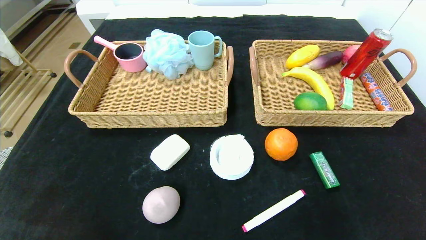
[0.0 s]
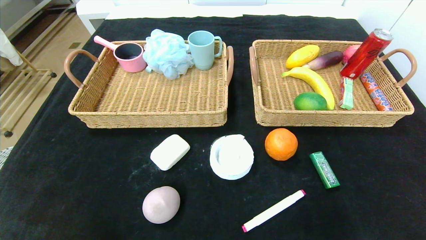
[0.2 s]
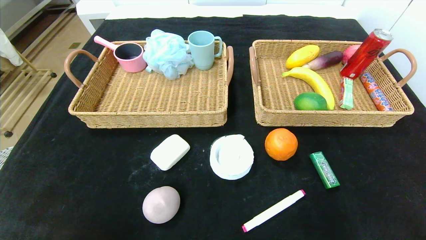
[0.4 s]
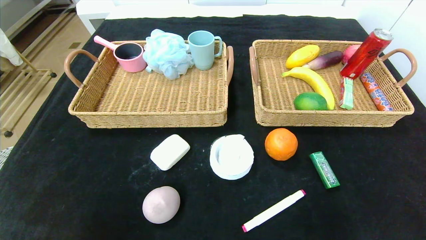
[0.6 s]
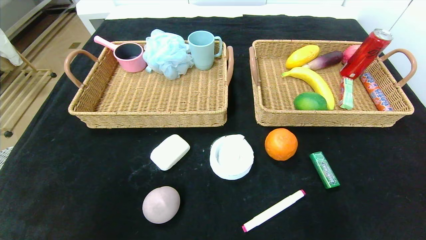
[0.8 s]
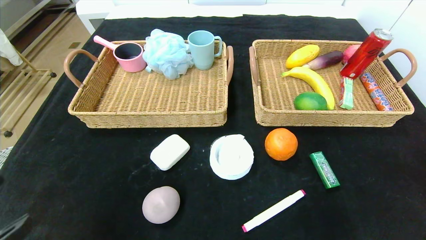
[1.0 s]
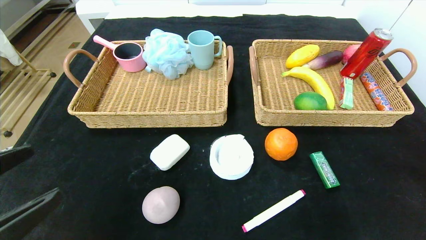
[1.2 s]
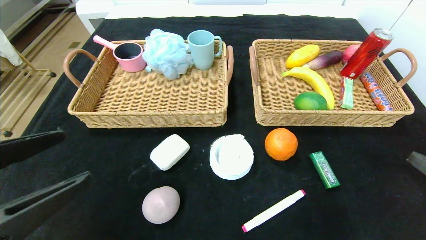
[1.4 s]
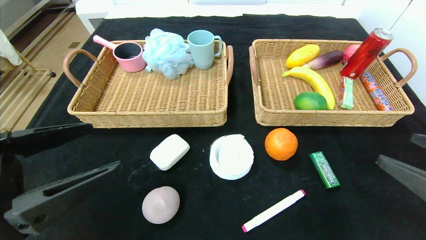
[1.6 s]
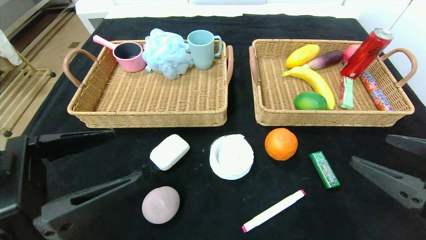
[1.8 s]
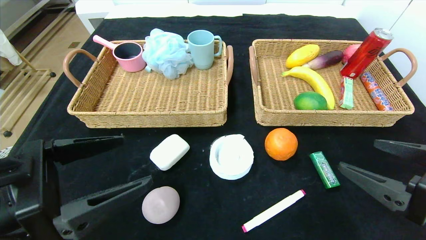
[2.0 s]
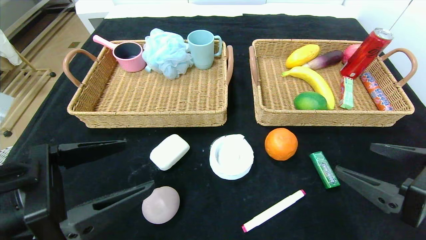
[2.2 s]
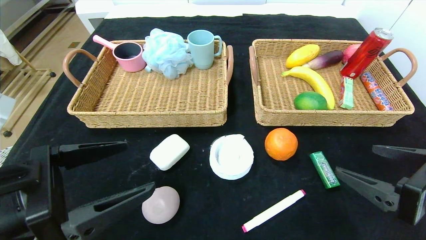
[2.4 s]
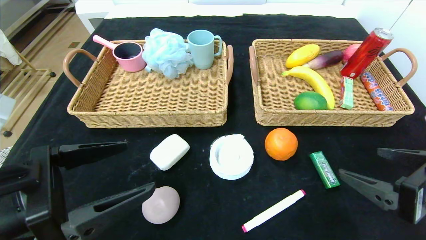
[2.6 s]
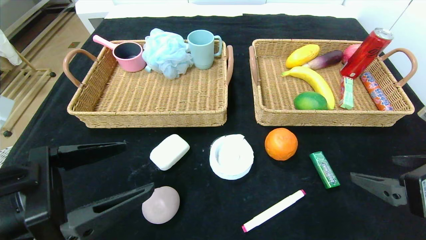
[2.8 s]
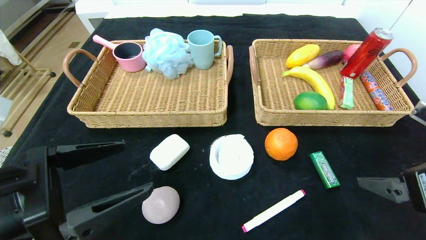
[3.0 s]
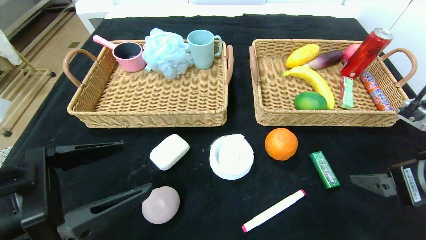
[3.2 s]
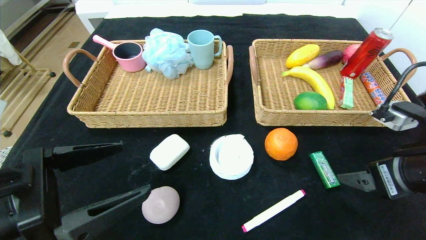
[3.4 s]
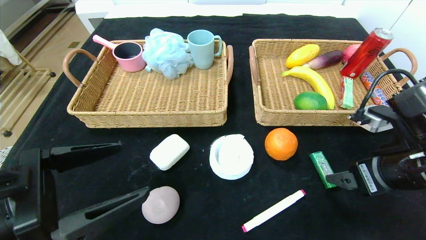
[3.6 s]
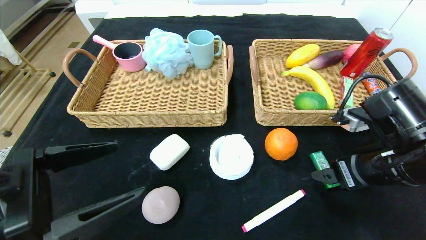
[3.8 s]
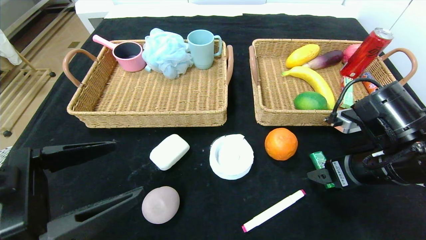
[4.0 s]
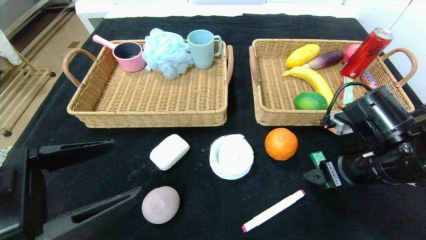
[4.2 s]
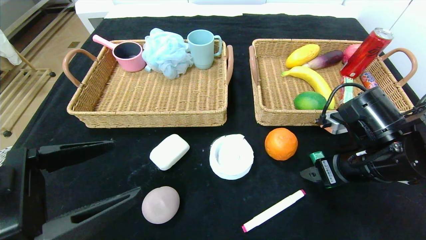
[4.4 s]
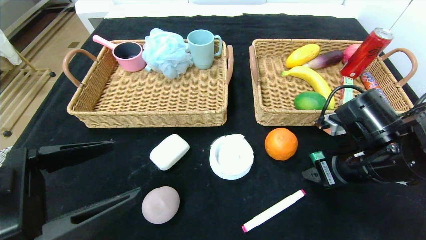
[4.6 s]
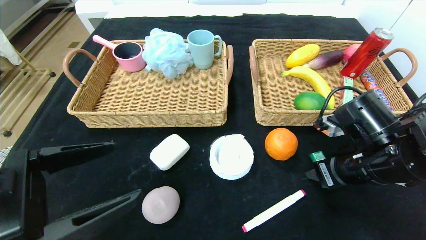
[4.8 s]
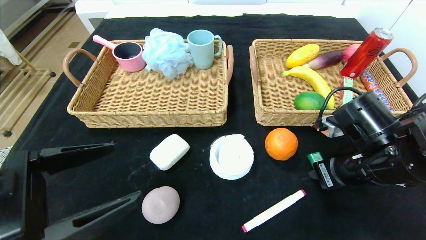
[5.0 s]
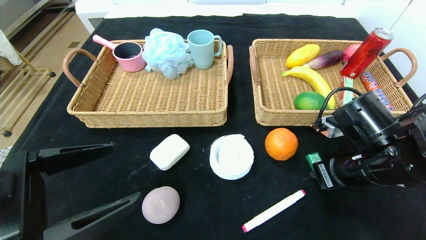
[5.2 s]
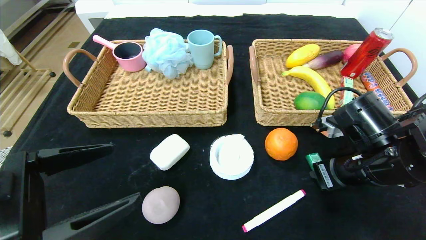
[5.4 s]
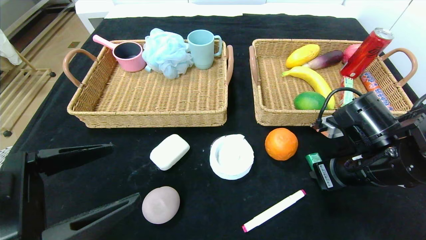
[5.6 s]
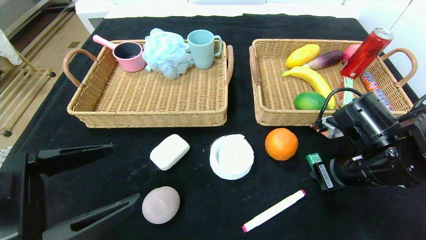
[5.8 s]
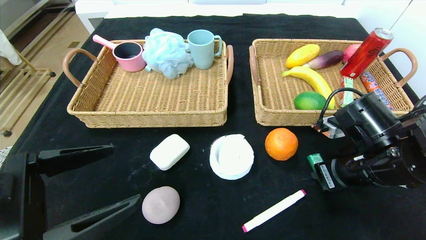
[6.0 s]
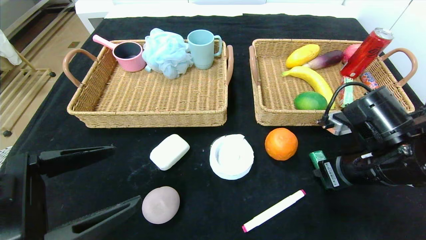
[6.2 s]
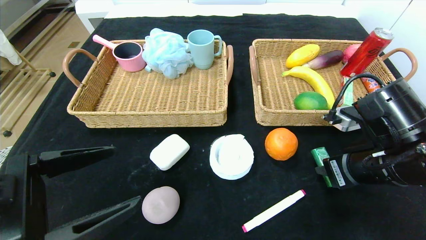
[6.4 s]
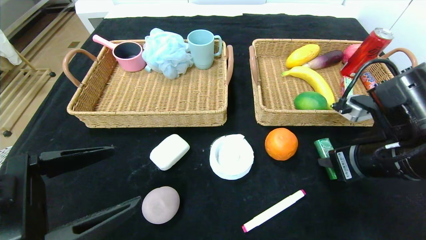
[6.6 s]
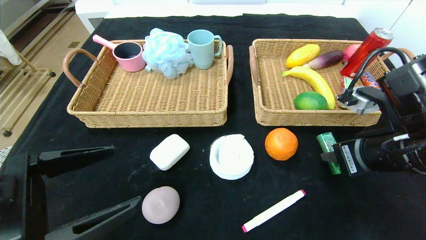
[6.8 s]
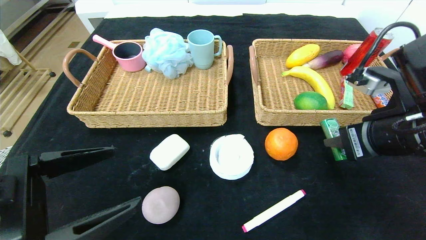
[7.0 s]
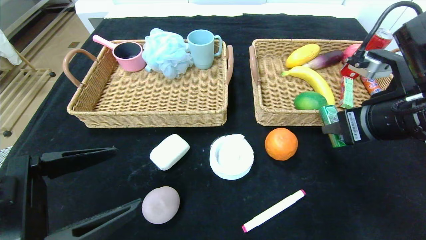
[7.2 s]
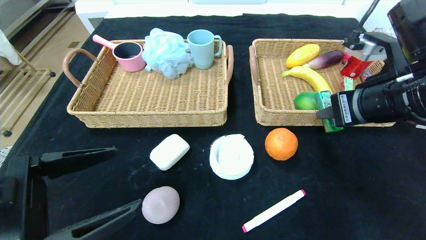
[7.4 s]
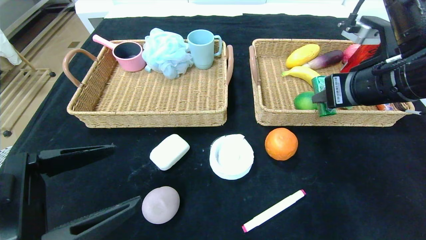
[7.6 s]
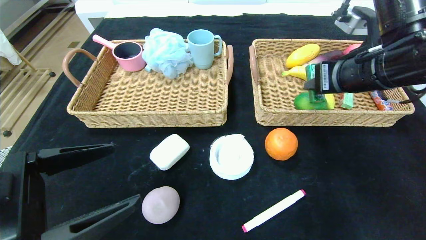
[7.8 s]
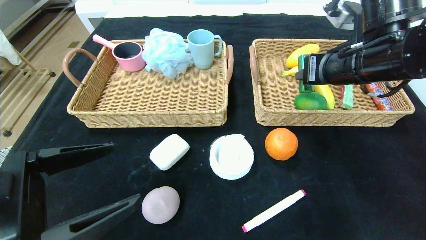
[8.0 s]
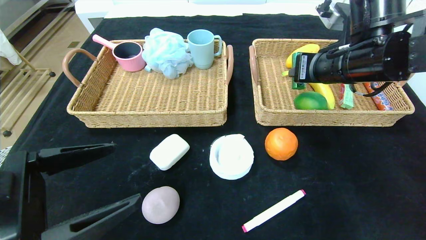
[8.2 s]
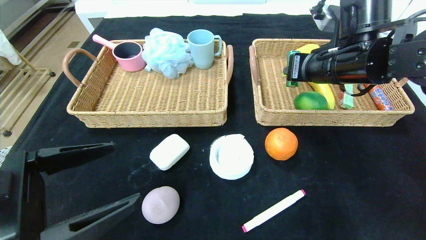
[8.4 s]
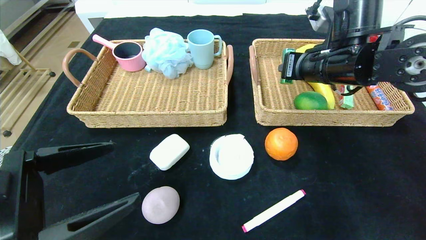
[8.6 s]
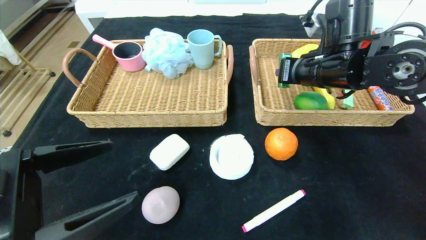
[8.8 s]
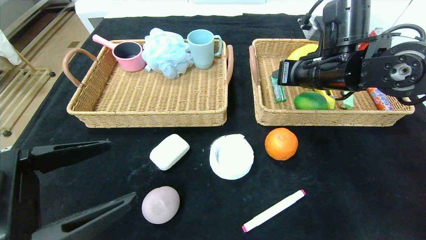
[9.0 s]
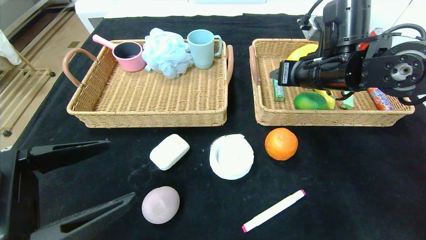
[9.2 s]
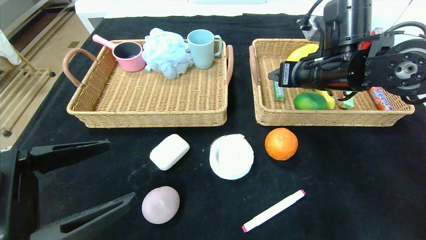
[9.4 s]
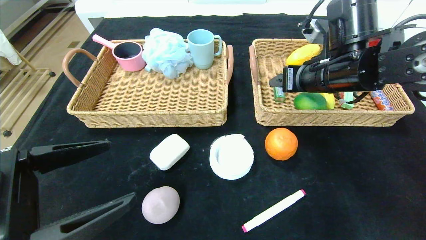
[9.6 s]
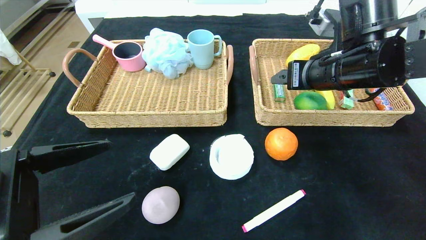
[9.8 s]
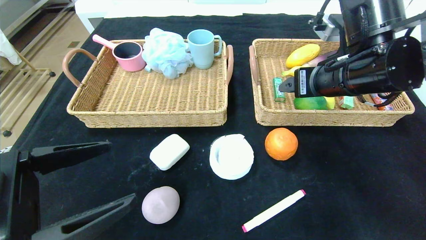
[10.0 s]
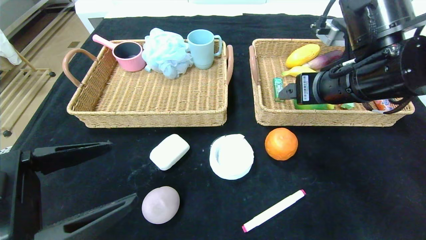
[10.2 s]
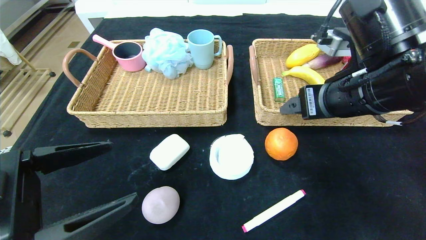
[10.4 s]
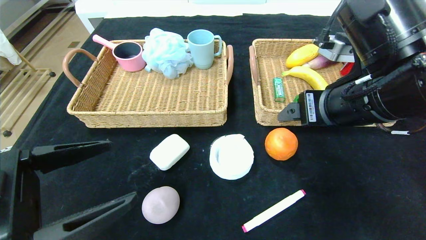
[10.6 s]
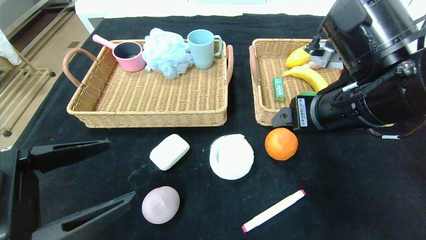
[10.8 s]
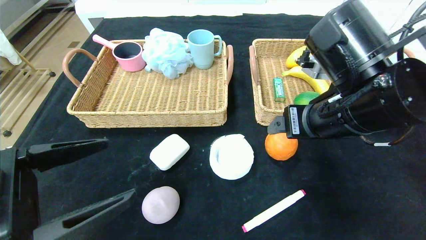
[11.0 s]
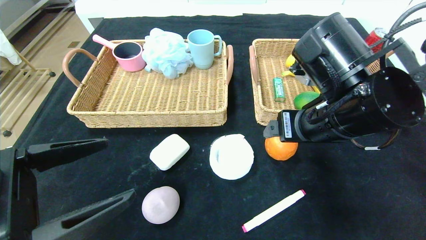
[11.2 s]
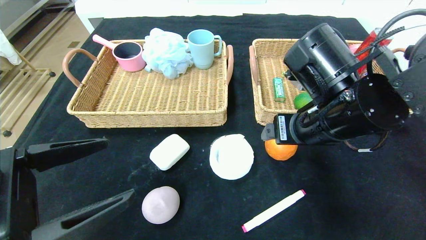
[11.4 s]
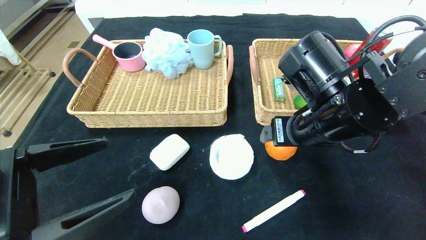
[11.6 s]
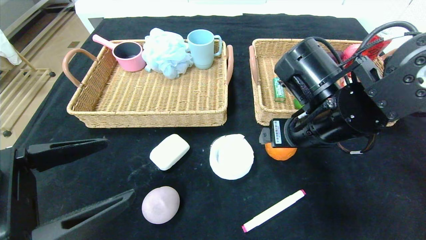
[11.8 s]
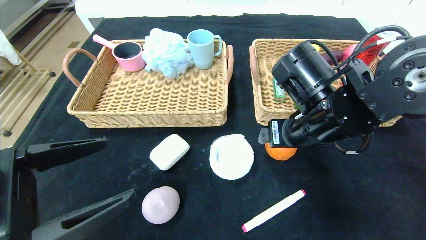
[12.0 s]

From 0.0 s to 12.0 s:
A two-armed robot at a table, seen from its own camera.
Step, from 0.0 s to 9.2 s: Grasp the green chewing gum and put it in the right basket.
From 0.0 s to 1.6 s: The grippers both shift upward and forward by roughly 20 cm.
From 1.6 s to 3.0 s: The right gripper shifts by roughly 5 cm.
From 3.0 s to 4.4 s: The right gripper shifts approximately 10 cm forward, to the left and downward.
From 4.4 s to 6.0 s: The right gripper closes up.
From 6.0 s to 7.6 s: The right gripper moves upward, roughly 10 cm.
From 7.6 s to 9.0 s: The right gripper goes some 10 cm forward.
From 9.0 s to 10.4 s: The right gripper goes roughly 10 cm backward, and opens.
From 10.4 s to 12.0 s: The right gripper is displaced downward by about 5 cm.

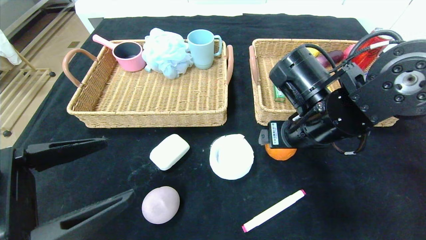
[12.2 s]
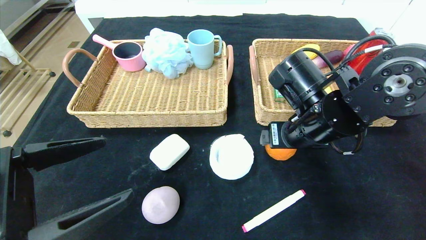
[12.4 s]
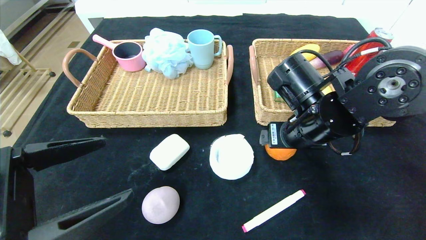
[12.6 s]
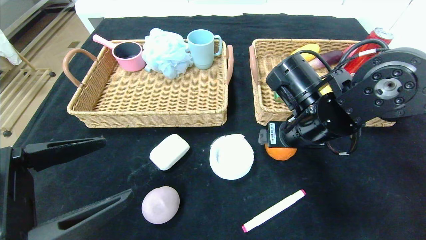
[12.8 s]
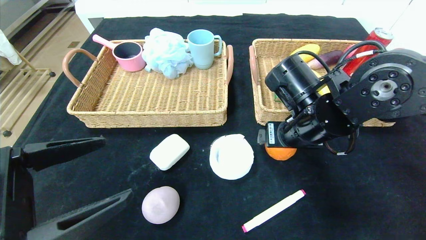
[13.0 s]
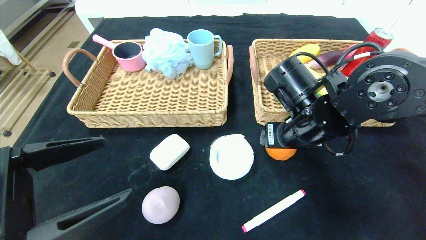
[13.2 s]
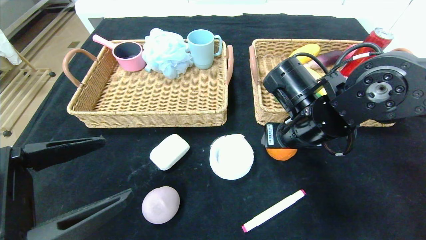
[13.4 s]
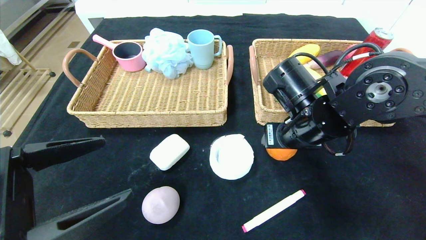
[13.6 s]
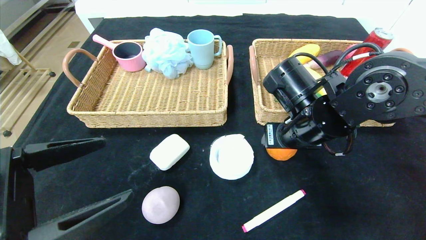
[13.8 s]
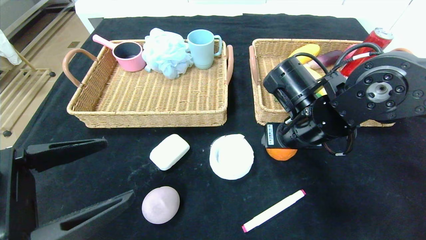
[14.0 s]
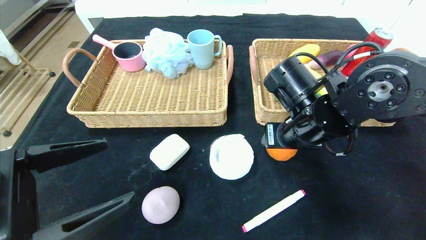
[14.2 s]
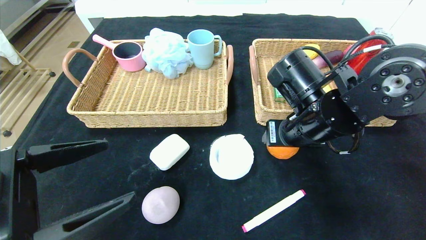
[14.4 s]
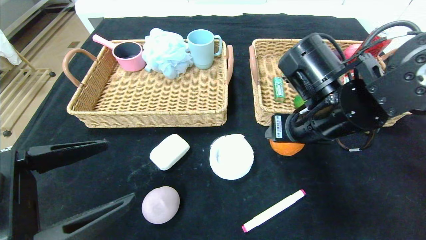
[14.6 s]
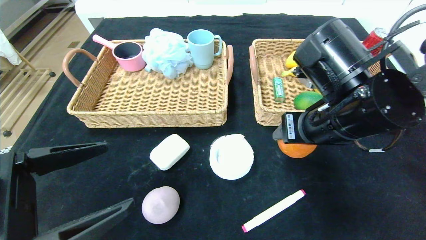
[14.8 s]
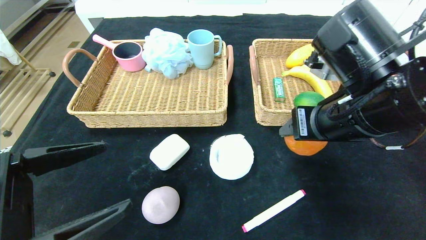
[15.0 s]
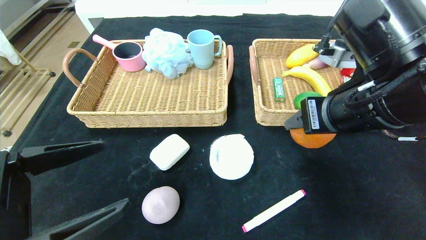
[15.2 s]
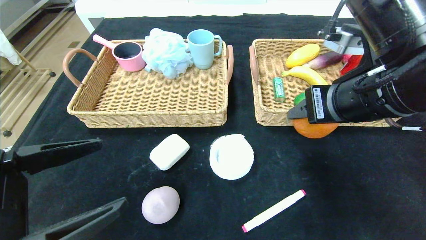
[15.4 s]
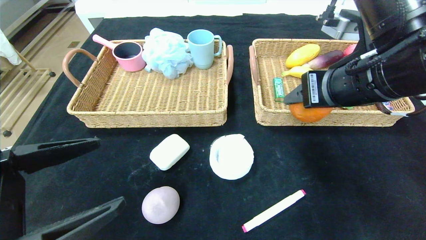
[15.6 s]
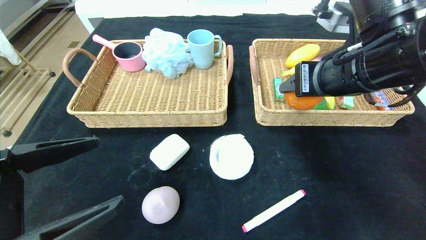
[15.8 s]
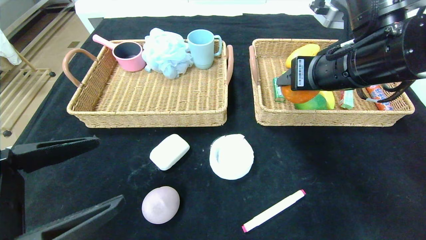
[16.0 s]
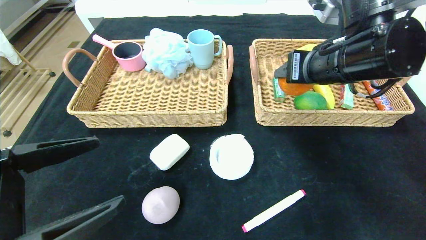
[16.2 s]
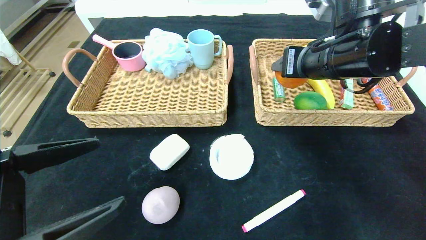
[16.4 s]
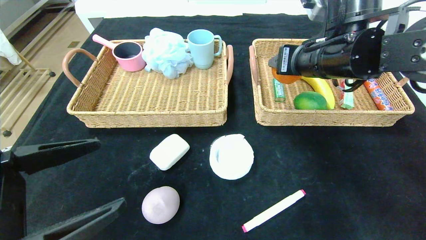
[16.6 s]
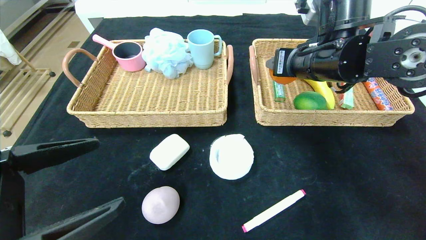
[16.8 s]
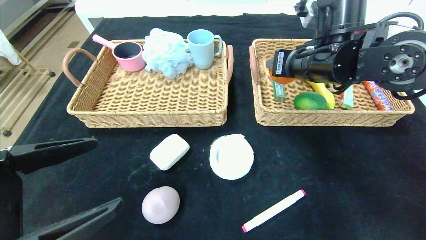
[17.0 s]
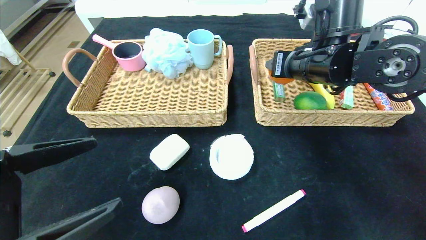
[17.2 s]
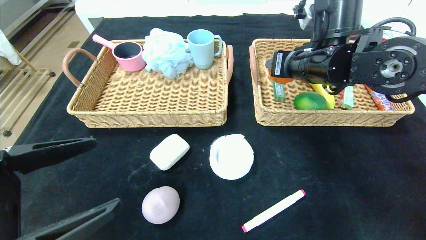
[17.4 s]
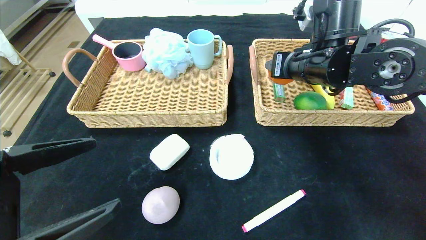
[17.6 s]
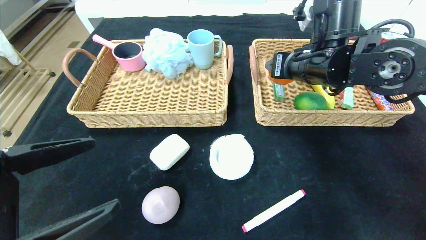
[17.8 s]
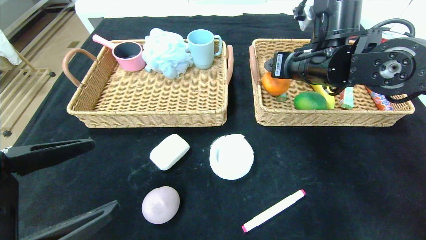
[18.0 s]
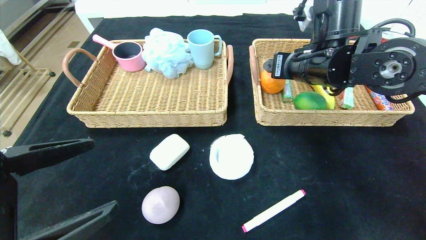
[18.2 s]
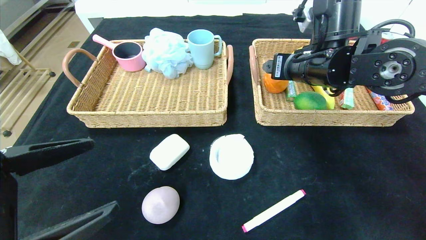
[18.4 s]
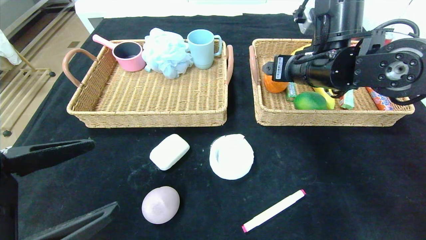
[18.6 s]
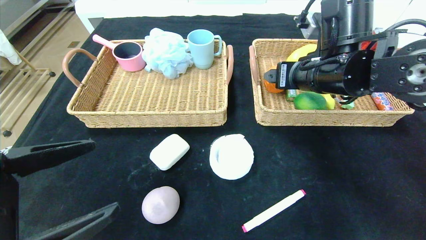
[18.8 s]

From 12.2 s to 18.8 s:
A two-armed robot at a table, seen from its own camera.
Step, from 12.2 s to 18.0 s: Grasp the orange and put it in the right basket.
From 12.2 s to 13.8 s: There are only small adjustments of the grippers.
From 13.8 s to 15.4 s: The right gripper heads upward and backward, covering roughly 10 cm.
From 15.4 s to 17.2 s: The right gripper heads forward, covering about 10 cm.
From 17.2 s to 18.8 s: There are only small adjustments of the grippers.
